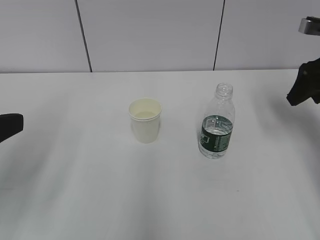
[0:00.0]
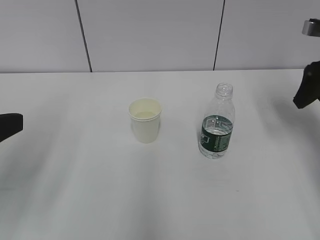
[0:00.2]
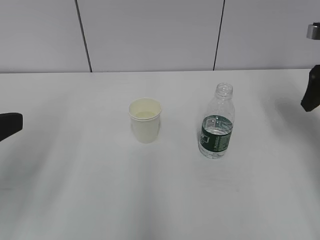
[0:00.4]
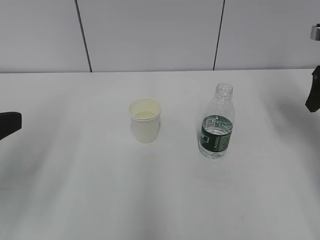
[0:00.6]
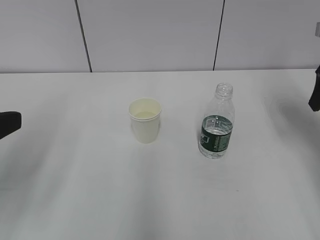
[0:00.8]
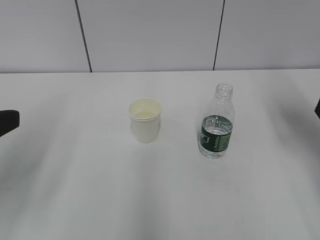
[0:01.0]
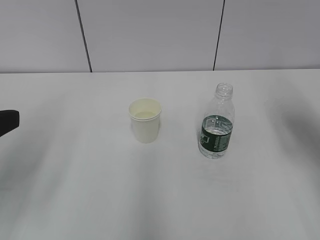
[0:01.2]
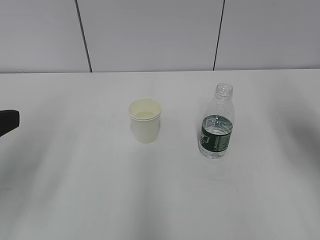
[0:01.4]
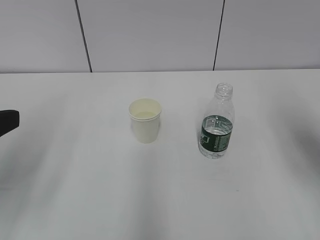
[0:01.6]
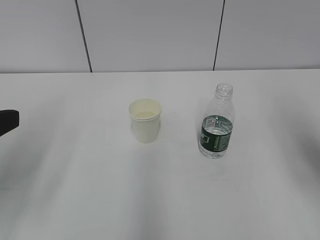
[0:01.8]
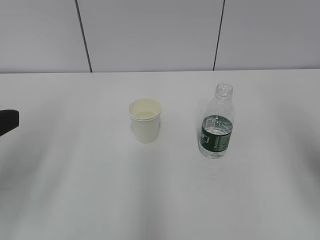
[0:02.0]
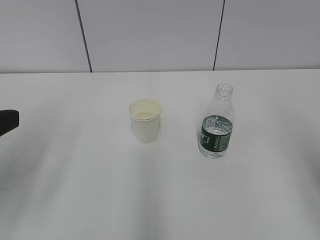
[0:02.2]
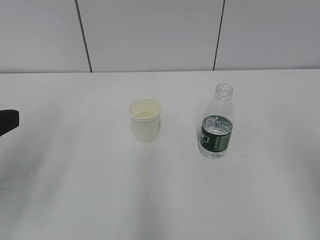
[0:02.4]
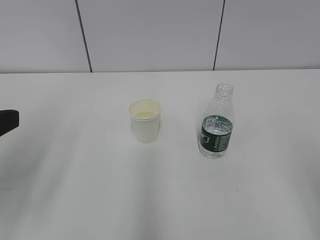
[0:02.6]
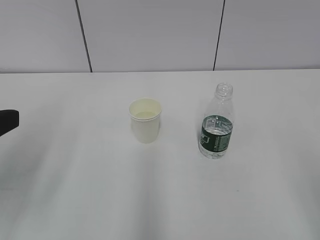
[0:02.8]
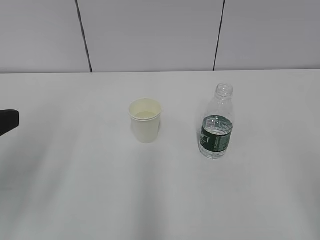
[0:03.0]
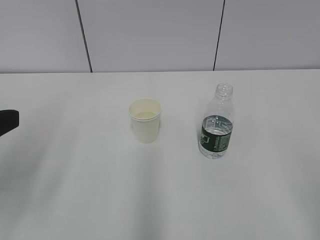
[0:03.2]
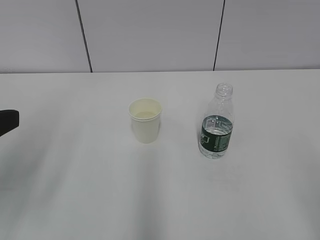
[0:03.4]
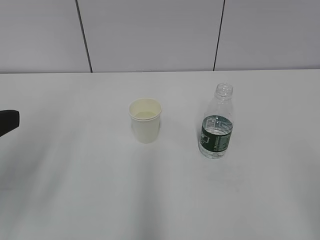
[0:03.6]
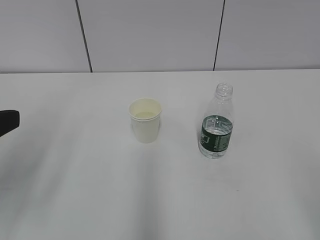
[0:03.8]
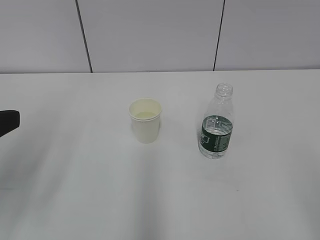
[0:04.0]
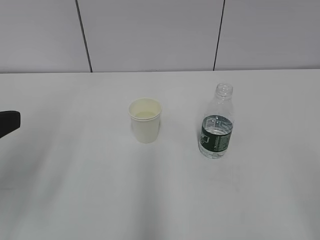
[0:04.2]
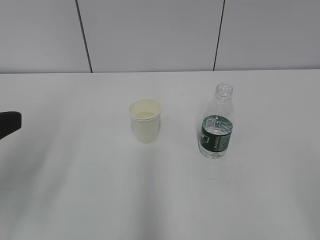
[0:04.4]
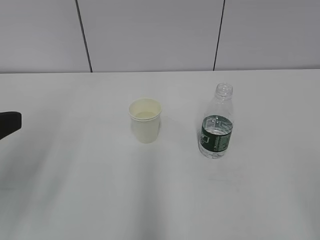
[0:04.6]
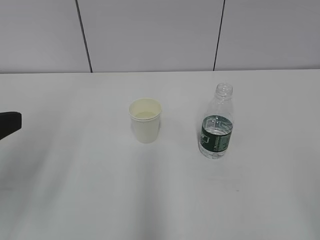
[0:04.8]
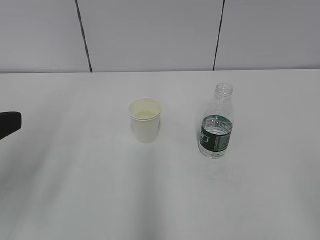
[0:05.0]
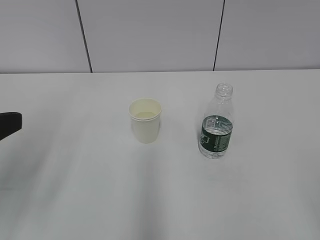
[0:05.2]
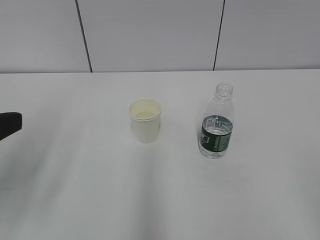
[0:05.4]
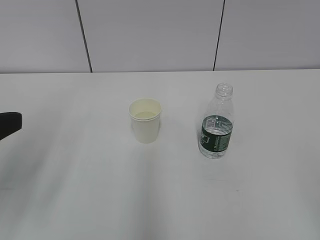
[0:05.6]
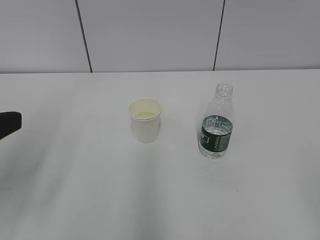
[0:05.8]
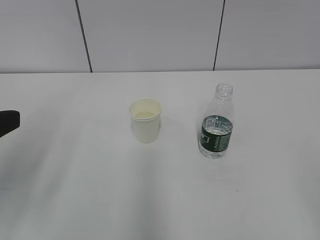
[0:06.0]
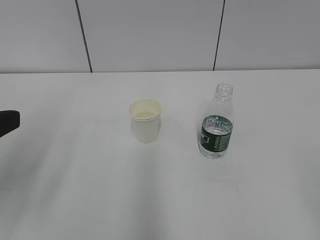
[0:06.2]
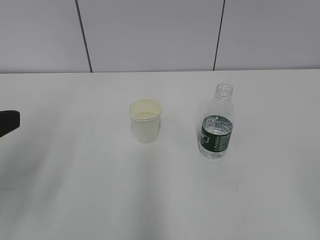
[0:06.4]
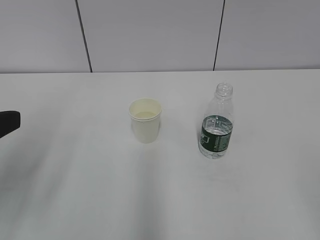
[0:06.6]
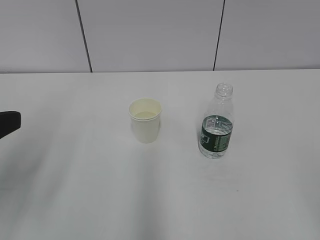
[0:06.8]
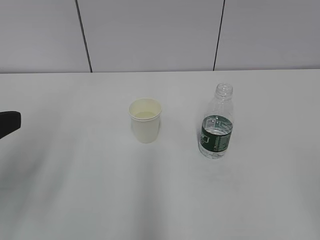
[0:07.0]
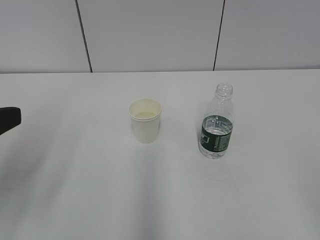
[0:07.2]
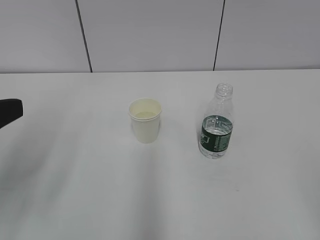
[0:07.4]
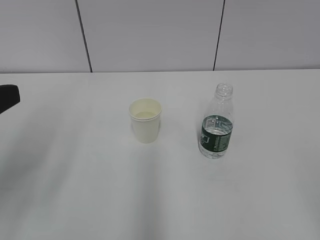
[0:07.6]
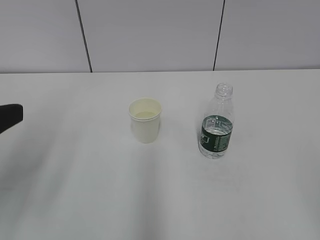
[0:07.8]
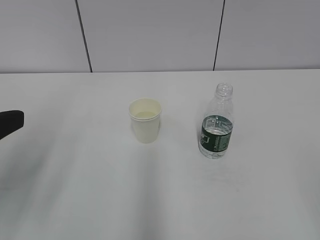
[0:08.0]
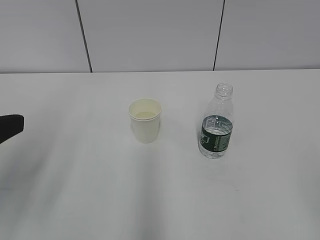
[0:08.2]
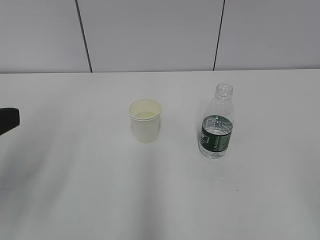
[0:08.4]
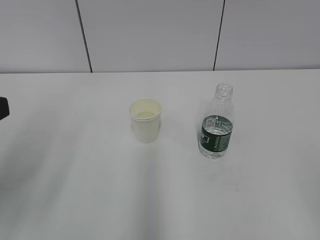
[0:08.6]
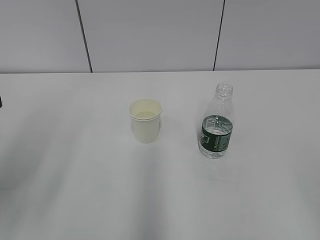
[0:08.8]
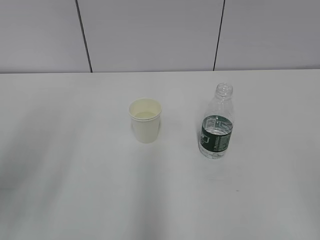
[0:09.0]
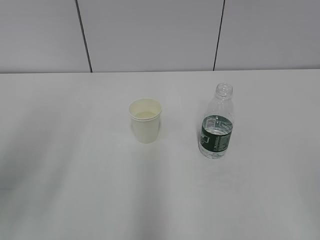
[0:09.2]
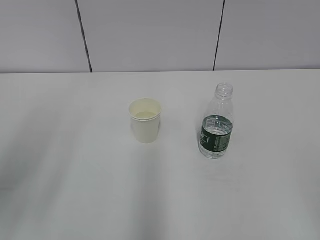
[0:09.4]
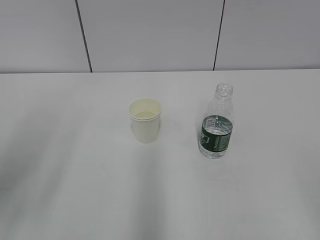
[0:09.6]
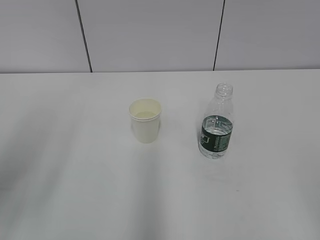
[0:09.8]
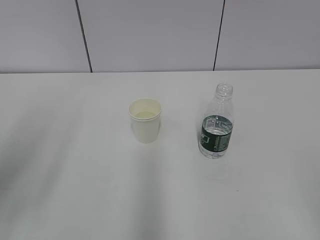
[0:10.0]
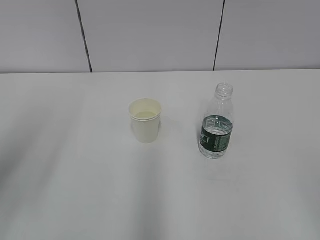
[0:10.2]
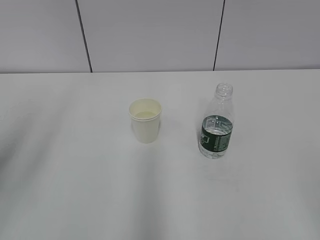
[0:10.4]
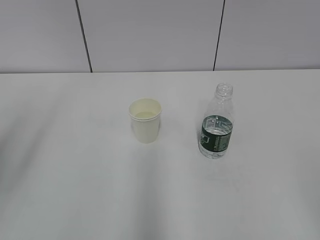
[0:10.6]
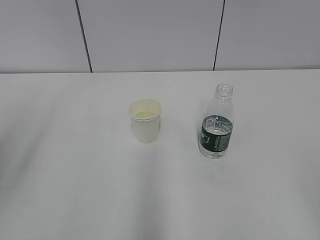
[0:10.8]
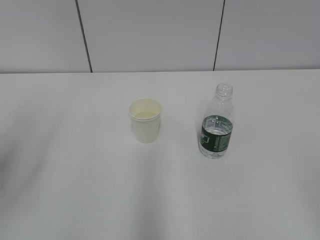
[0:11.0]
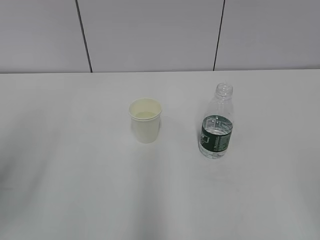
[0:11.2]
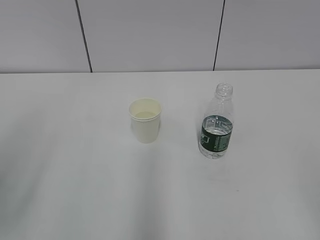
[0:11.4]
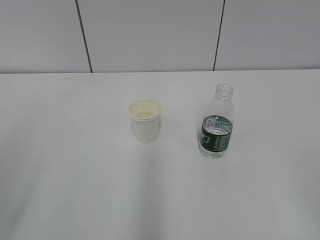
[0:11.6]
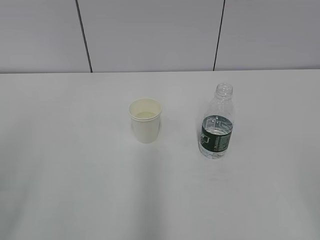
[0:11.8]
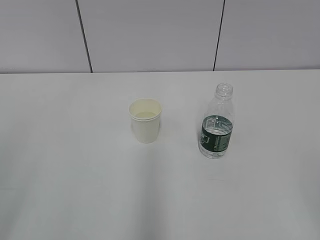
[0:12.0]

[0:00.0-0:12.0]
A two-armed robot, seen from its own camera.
0:00.0 to 0:01.6: The right gripper heads backward, covering roughly 15 cm.
0:01.6 to 0:03.0: The right gripper is displaced backward by about 20 cm.
0:04.4 to 0:06.0: Neither gripper changes place.
0:06.0 to 0:07.6: The grippers move only a little.

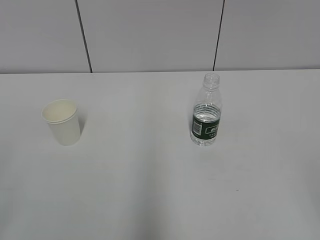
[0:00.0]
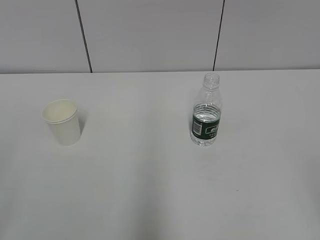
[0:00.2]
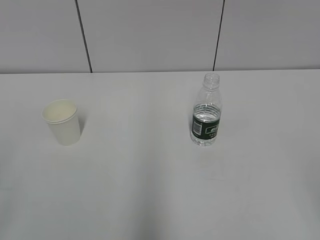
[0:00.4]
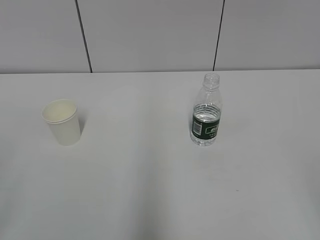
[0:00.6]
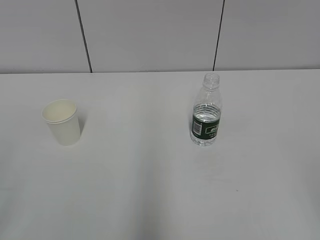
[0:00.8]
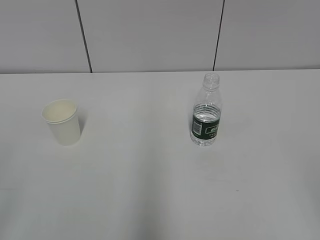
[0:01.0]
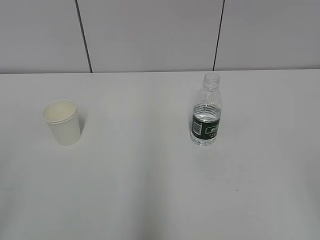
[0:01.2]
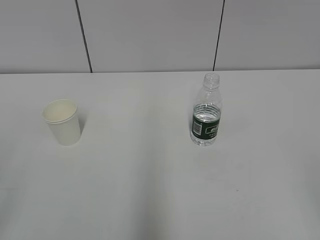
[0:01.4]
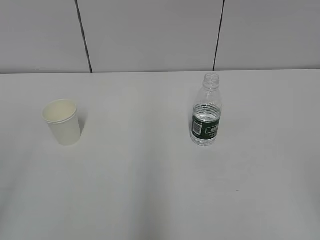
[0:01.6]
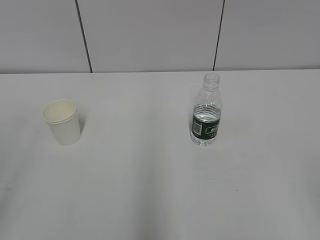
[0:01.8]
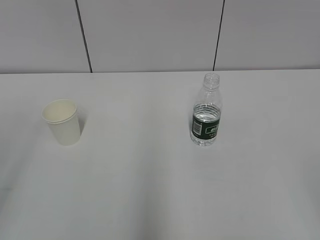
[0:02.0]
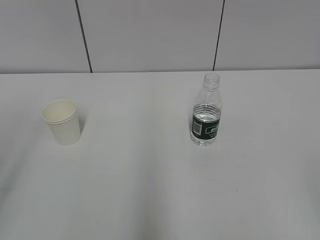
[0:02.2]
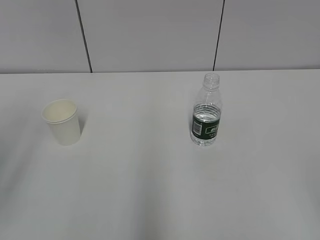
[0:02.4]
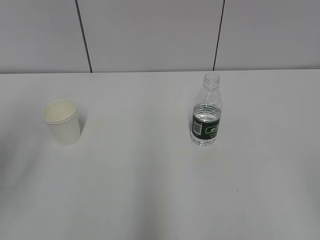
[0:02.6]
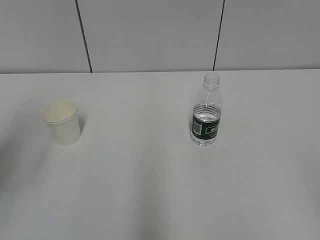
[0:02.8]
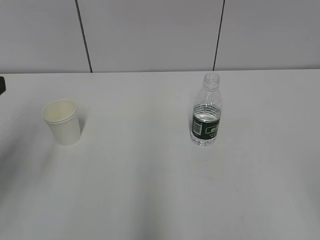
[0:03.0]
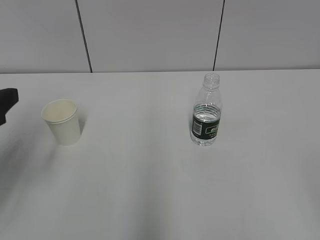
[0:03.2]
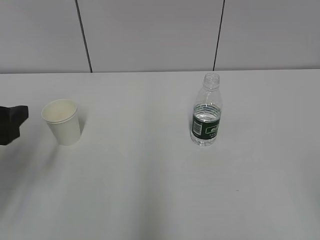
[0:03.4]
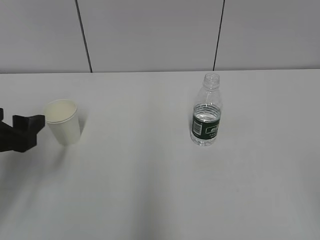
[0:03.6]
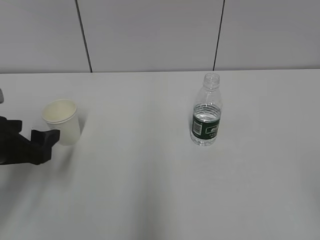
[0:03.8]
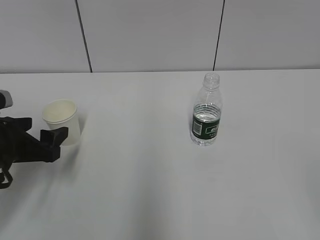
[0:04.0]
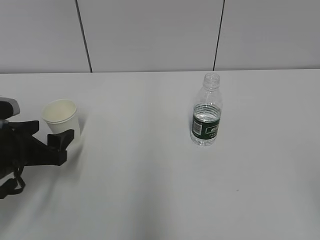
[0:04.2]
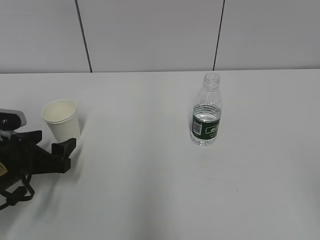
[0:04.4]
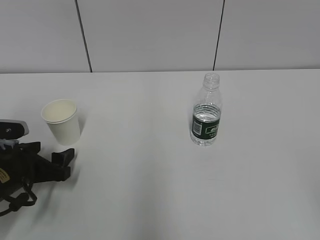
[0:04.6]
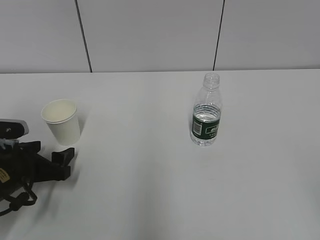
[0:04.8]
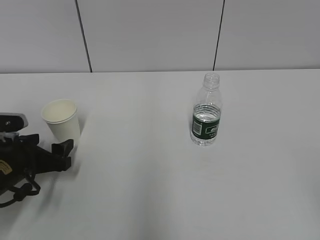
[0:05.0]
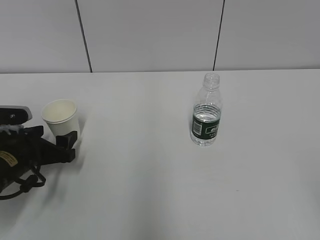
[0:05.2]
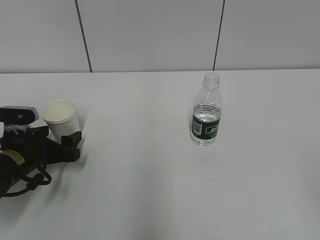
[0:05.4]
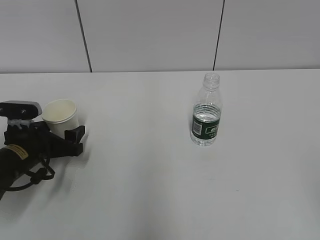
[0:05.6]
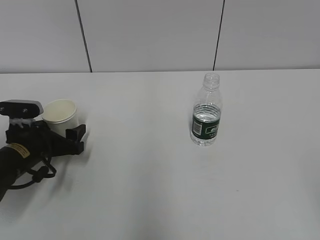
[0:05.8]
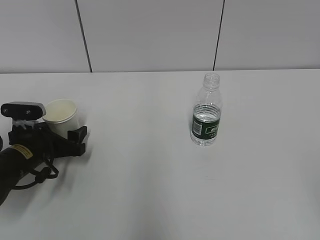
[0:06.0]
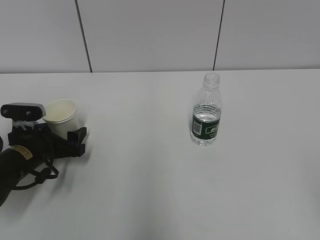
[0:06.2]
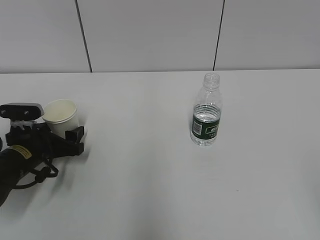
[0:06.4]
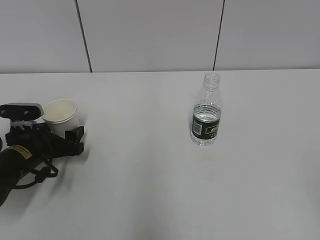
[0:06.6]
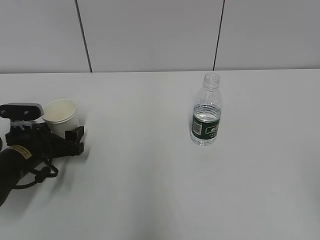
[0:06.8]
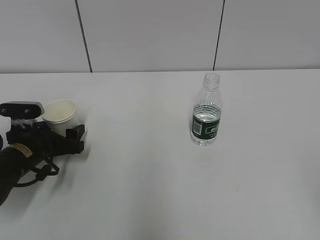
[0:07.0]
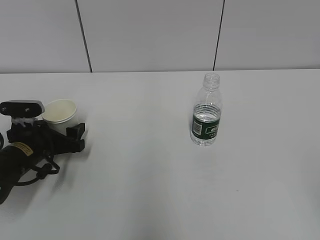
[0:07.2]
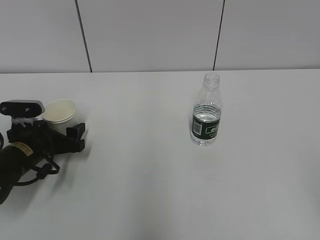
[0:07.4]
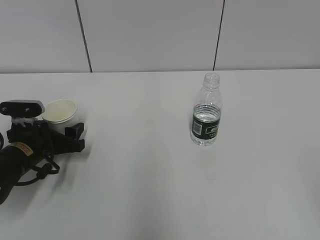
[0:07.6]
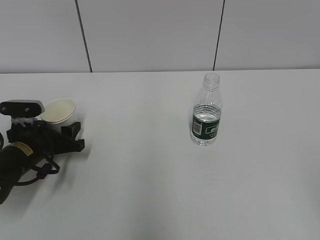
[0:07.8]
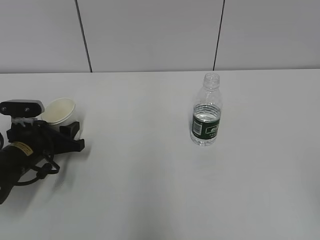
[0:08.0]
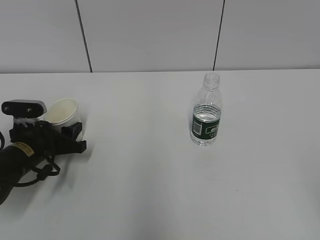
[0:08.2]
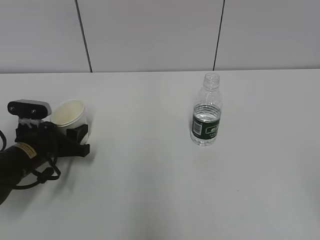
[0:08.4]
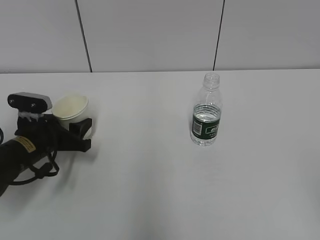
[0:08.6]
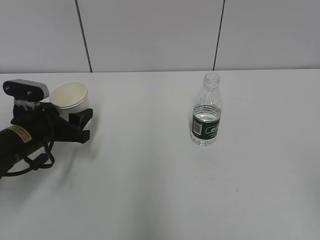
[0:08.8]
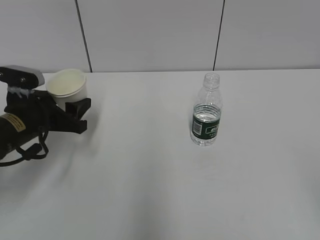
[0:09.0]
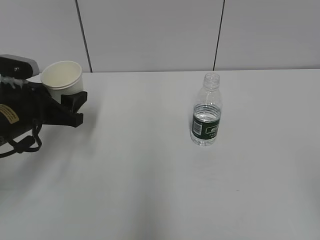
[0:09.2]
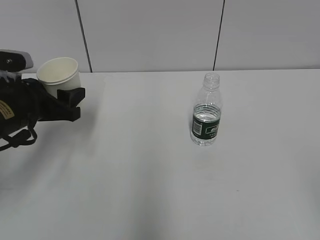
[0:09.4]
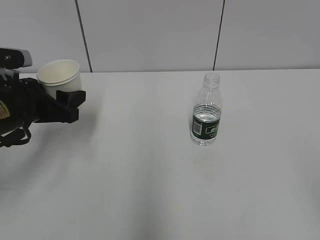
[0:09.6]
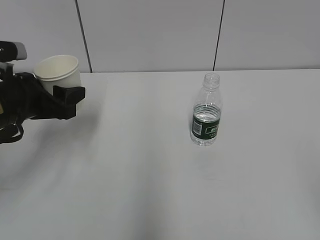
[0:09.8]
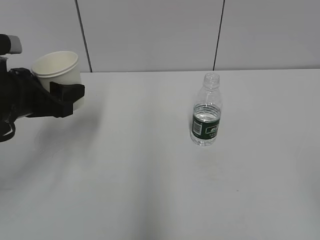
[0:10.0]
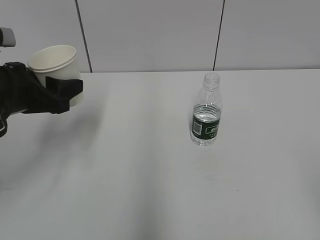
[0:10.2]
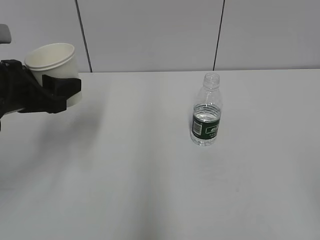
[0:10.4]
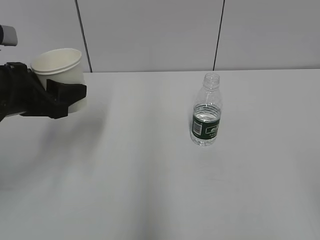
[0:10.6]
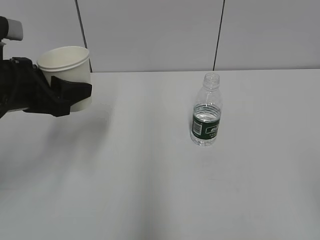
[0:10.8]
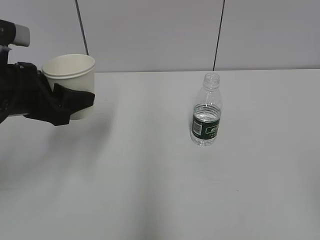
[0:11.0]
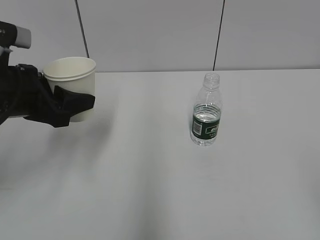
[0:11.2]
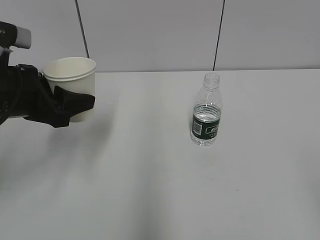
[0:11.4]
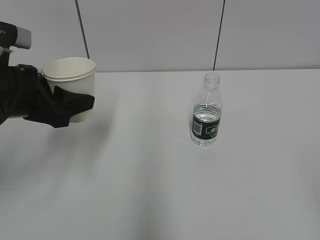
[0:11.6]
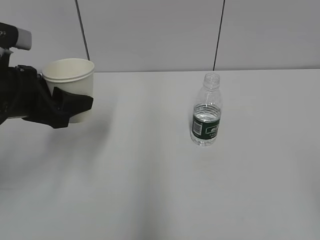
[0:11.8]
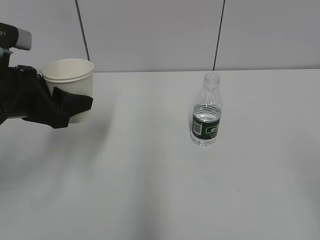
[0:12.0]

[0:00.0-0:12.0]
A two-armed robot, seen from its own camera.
Step, 0:00.0 to 0:06.4: Grab the paper cup with the left hand.
0:01.6 to 0:03.0: The left gripper shifts about 20 cm forward.
0:03.0 to 0:04.4: The left gripper moves downward and forward, about 20 cm.
0:04.4 to 0:06.0: The left gripper heads forward, covering about 5 cm.
0:06.0 to 0:07.6: Both grippers stay about where they are.
0:07.6 to 0:09.0: The left gripper goes about 5 cm upward, and closes.
0:09.0 to 0:10.4: The left gripper is displaced upward by some 10 cm.
0:10.4 to 0:12.0: The grippers make only small movements.
